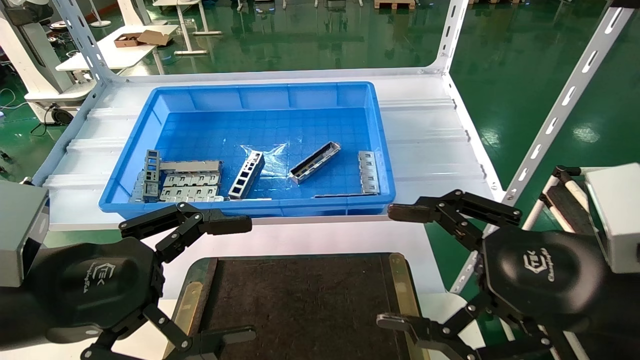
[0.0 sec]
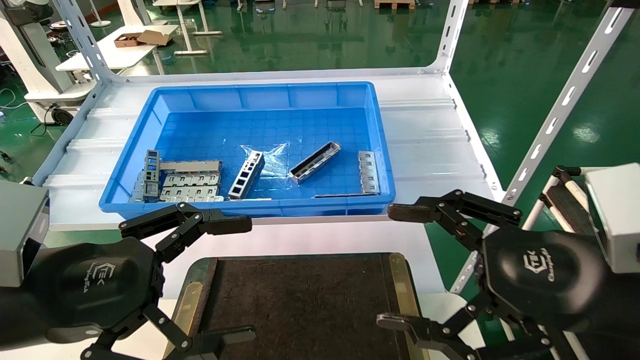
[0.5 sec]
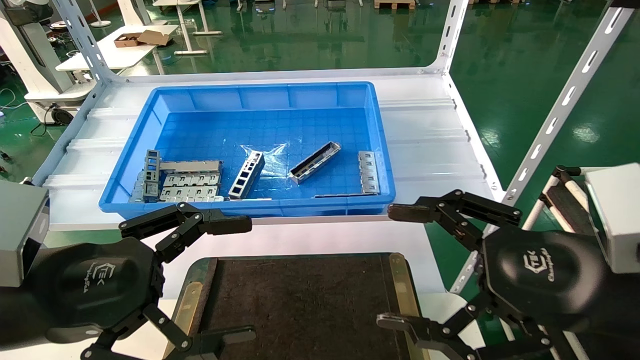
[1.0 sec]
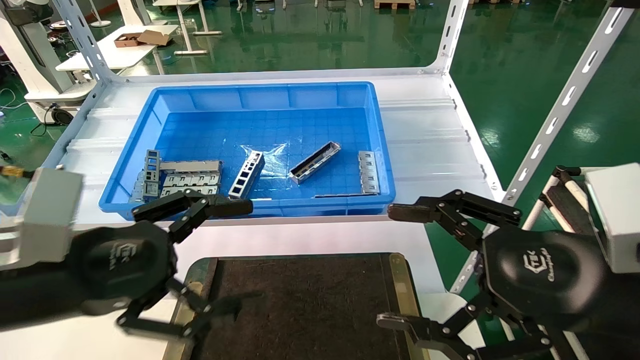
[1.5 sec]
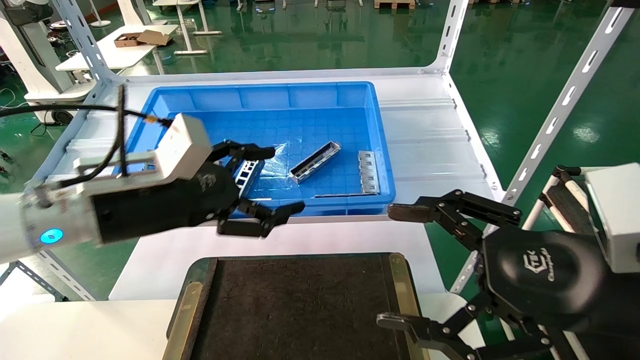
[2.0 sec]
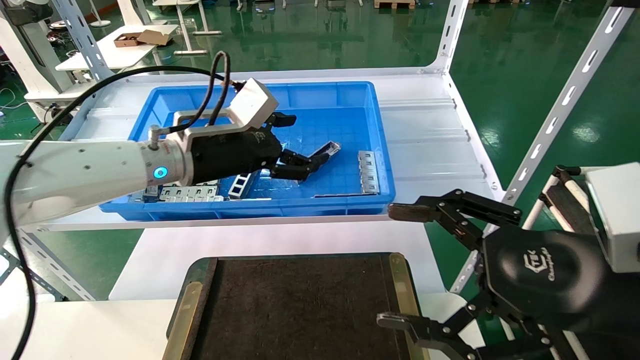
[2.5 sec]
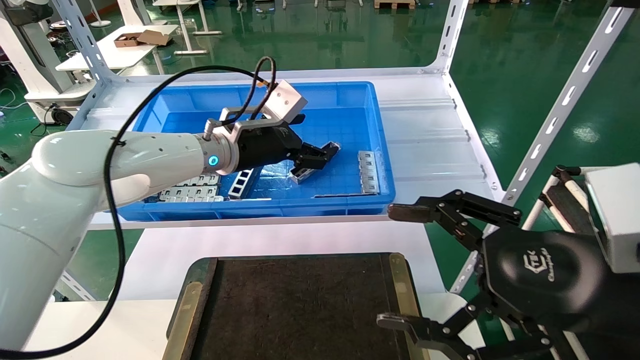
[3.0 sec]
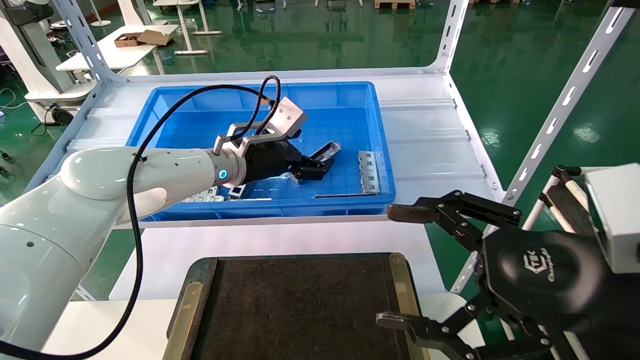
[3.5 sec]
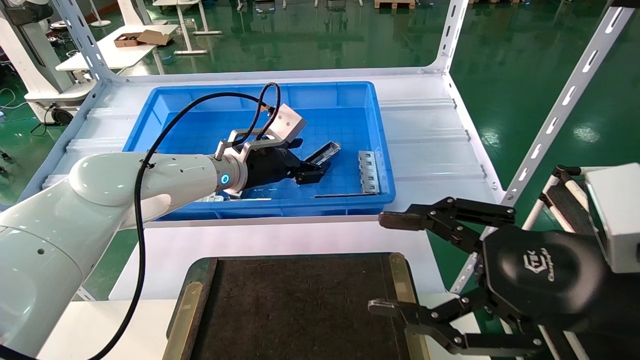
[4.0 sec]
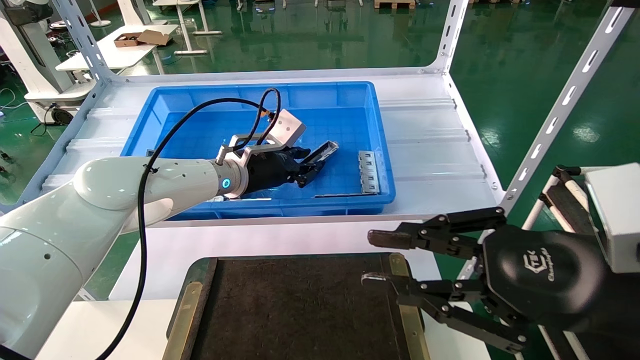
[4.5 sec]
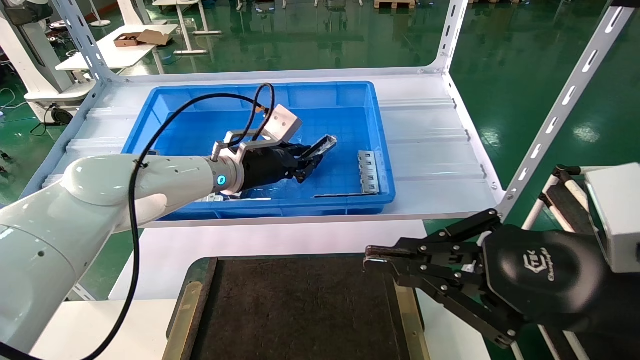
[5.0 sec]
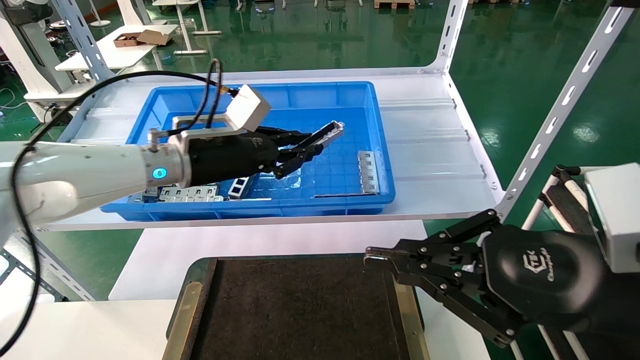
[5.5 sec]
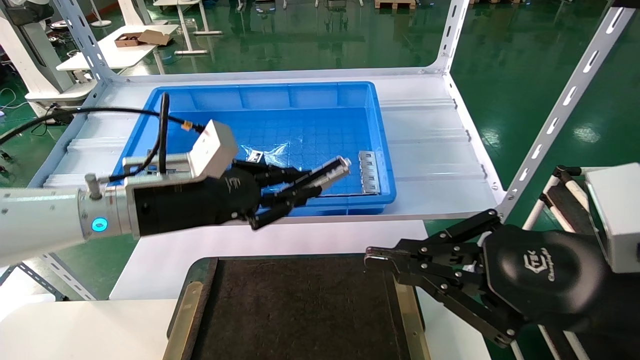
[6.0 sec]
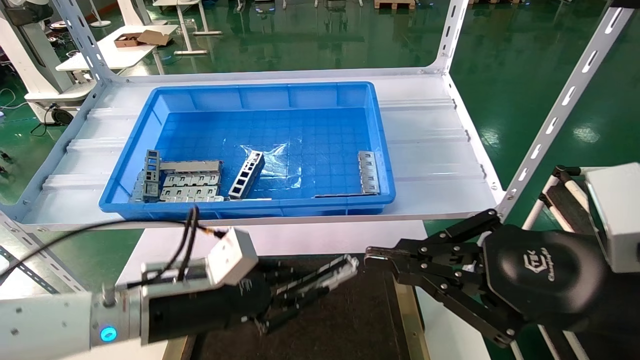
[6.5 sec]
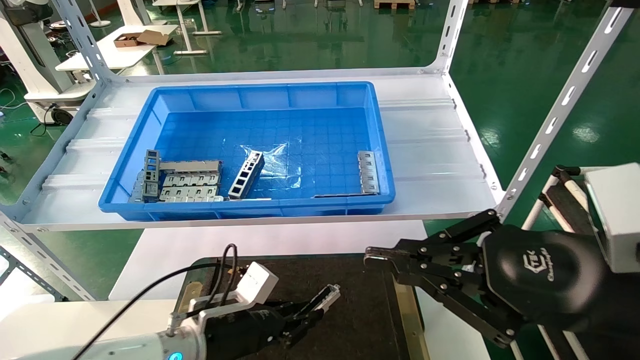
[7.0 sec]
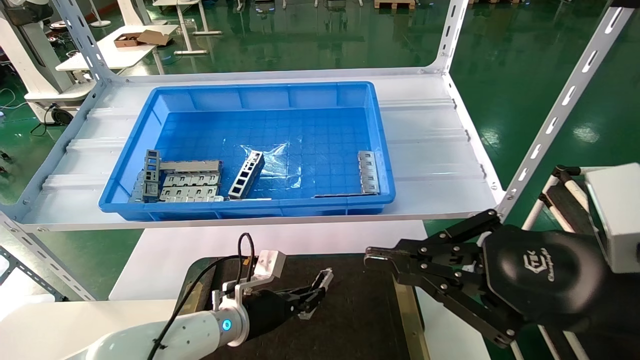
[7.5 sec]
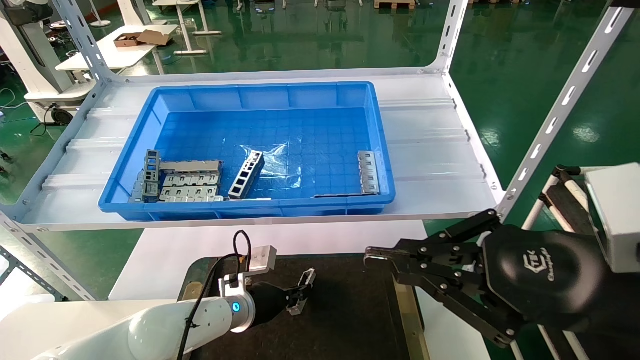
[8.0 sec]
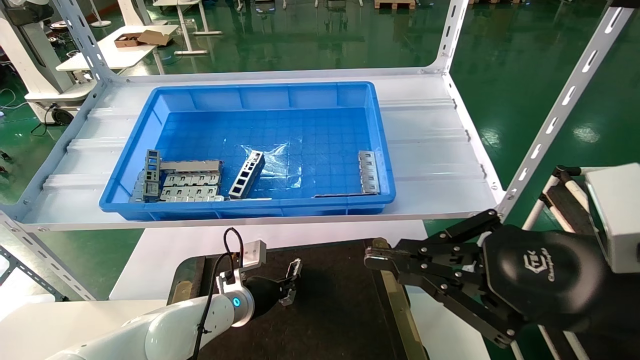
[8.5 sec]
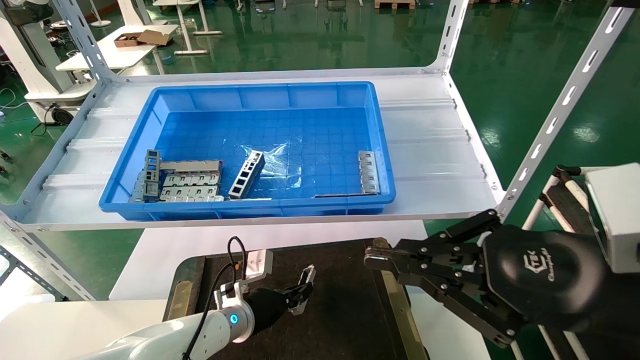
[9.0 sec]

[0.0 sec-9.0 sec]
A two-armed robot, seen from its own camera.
Task of the whole recording: Grasp the part with one hand and place it on the black container.
Step, 1.5 sec to 5.0 sec: Pick up the front USB bracket from the feeding area.
0.0 sec to 2.0 sec: The left gripper travels forward by about 10 cm.
2.0 sec to 4.5 sec: The left gripper shifts approximately 20 cm forward and to the right, and closes, while the right gripper closes up.
4.5 sec to 7.0 sec: The left gripper shifts roughly 25 cm downward and backward, while the right gripper closes.
7.0 sec to 9.0 sec: The left gripper moves forward, about 10 cm.

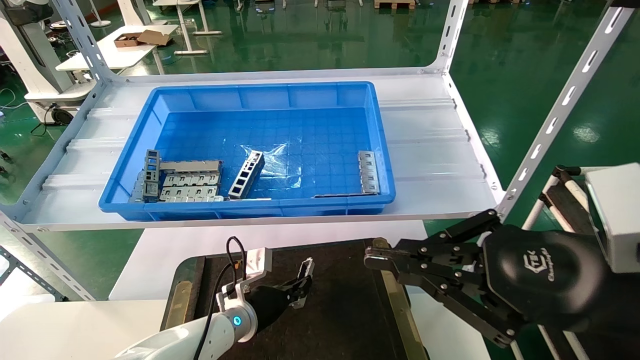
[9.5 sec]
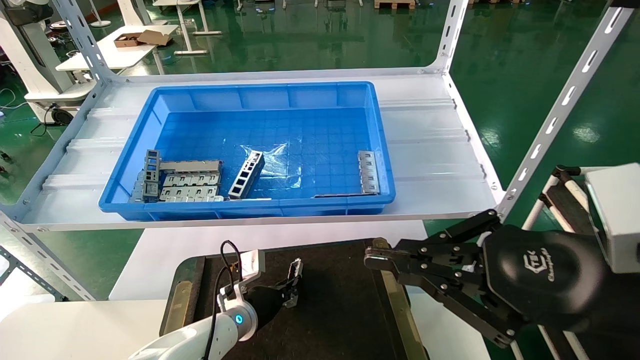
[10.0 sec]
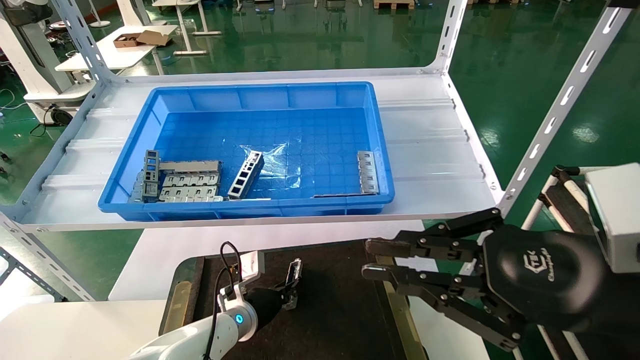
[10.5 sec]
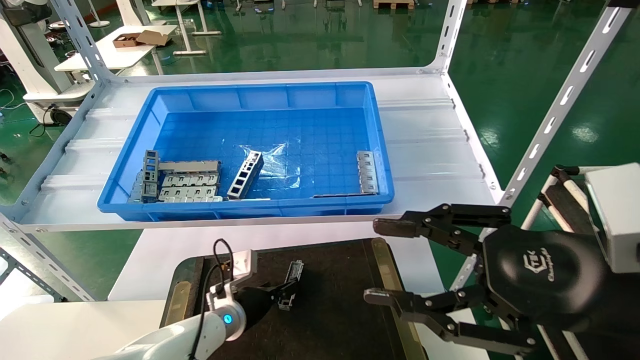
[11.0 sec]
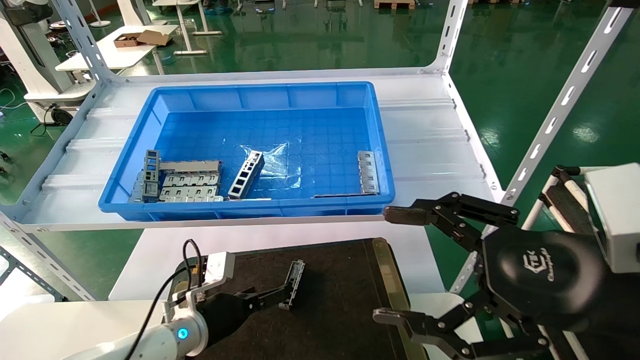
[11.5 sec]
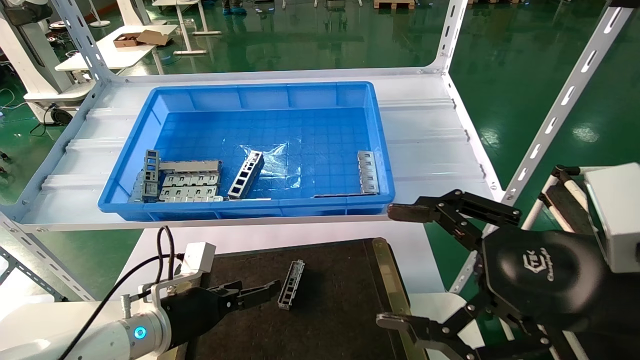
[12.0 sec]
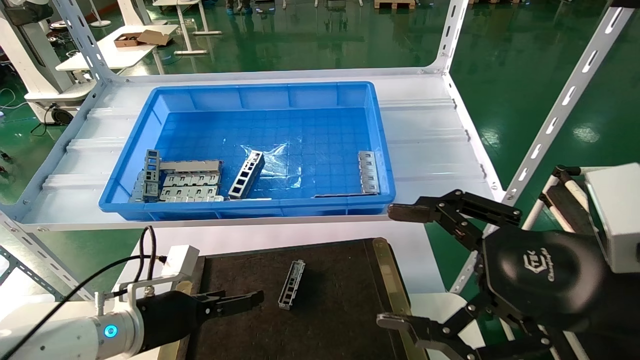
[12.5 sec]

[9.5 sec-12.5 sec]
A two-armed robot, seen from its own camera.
Task of the whole recording: Grasp the part with one hand and place it on the black container.
9.5 sec to 11.0 sec: The right gripper opens up; the left gripper opens its fingers.
11.0 sec to 12.5 sec: The left gripper is displaced backward, to the left and upward by some 15 cm, and opens its fingers. The right gripper opens up.
